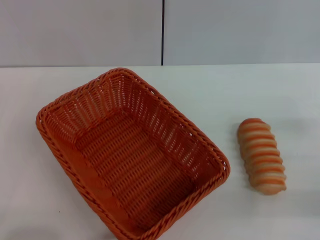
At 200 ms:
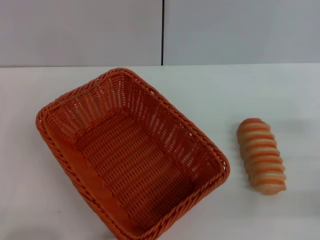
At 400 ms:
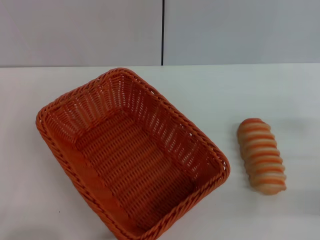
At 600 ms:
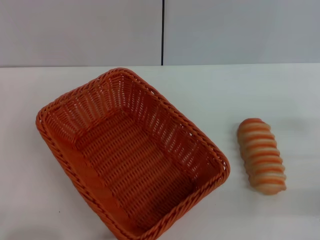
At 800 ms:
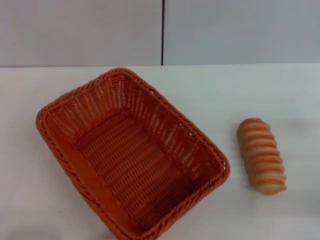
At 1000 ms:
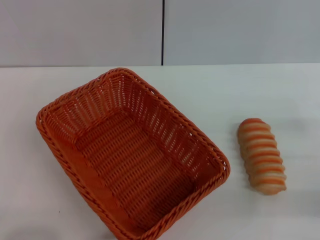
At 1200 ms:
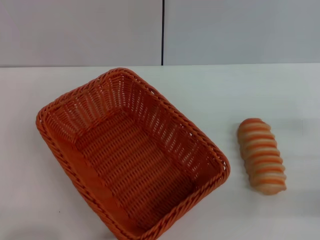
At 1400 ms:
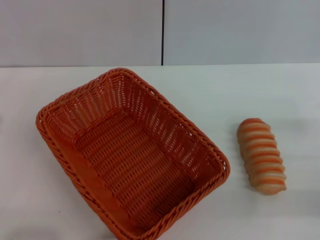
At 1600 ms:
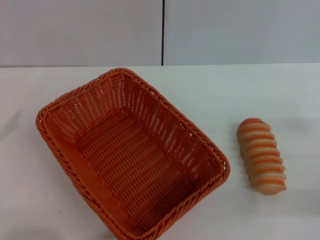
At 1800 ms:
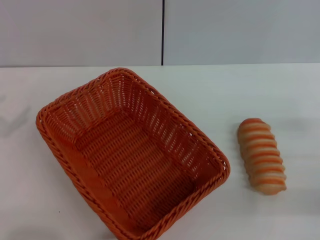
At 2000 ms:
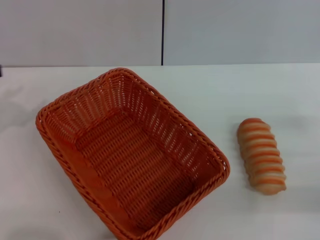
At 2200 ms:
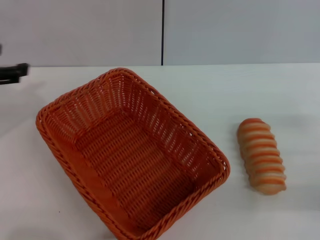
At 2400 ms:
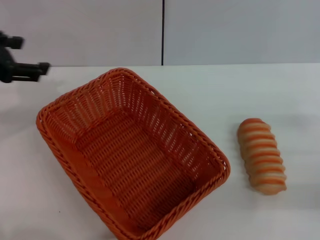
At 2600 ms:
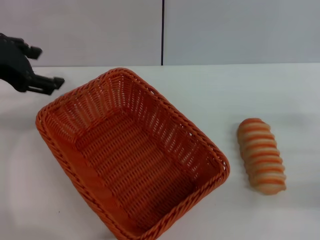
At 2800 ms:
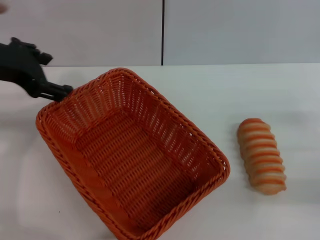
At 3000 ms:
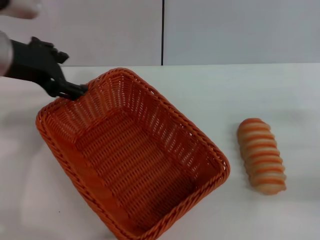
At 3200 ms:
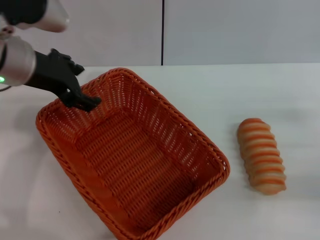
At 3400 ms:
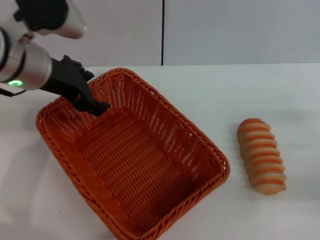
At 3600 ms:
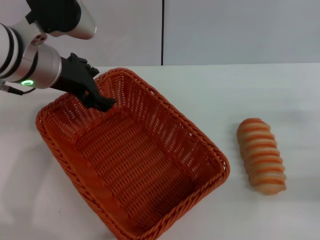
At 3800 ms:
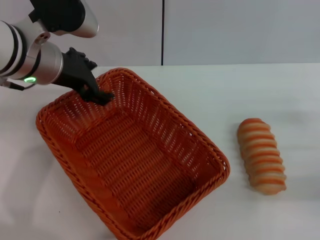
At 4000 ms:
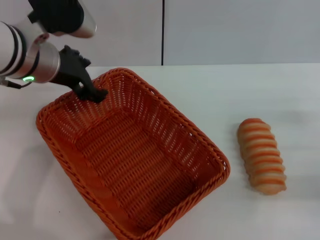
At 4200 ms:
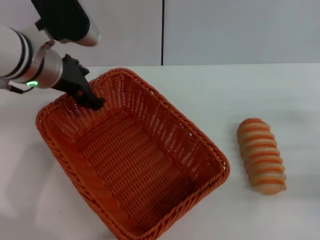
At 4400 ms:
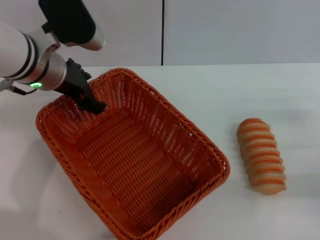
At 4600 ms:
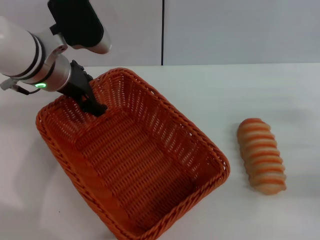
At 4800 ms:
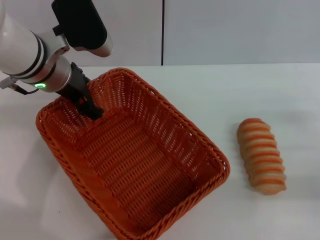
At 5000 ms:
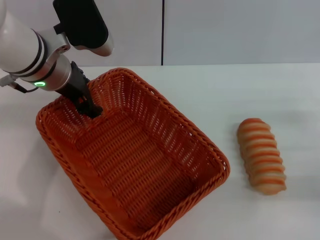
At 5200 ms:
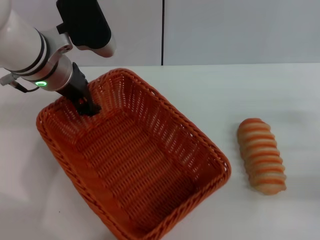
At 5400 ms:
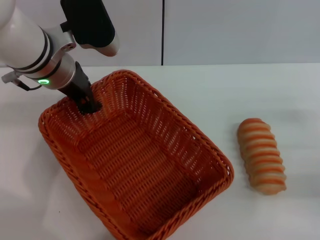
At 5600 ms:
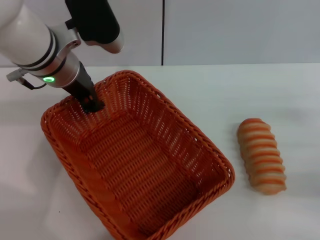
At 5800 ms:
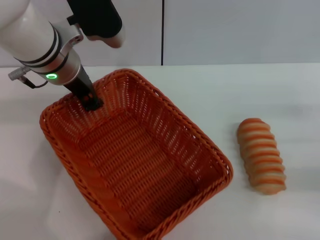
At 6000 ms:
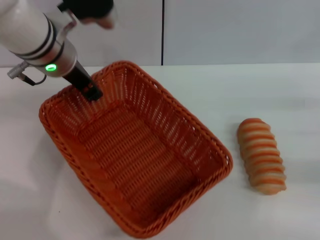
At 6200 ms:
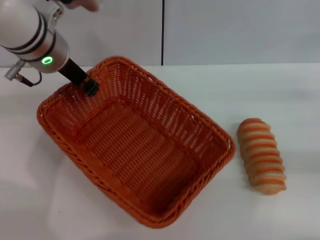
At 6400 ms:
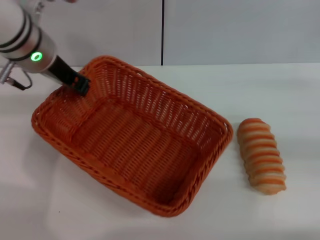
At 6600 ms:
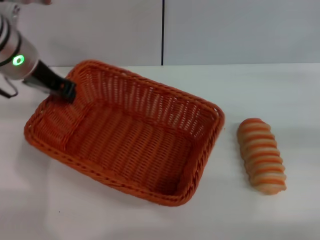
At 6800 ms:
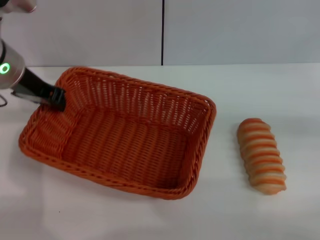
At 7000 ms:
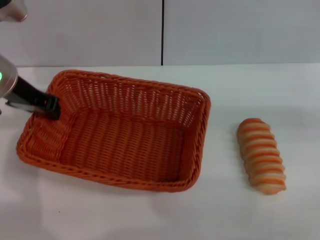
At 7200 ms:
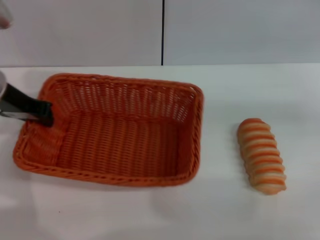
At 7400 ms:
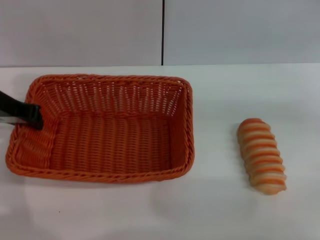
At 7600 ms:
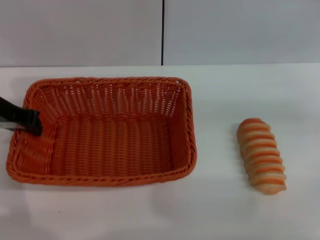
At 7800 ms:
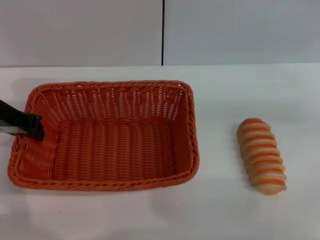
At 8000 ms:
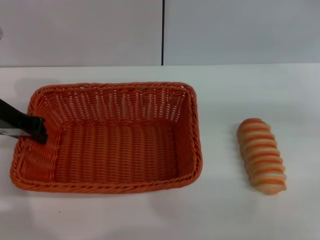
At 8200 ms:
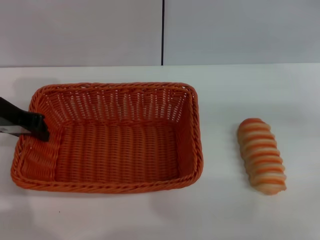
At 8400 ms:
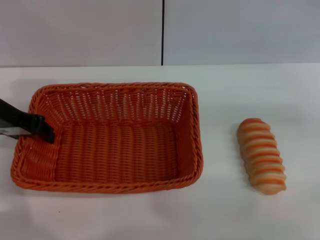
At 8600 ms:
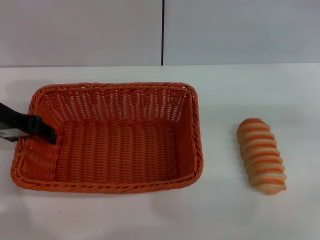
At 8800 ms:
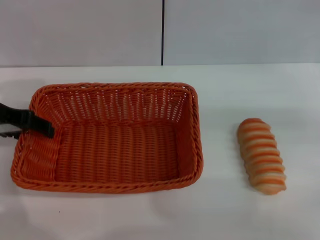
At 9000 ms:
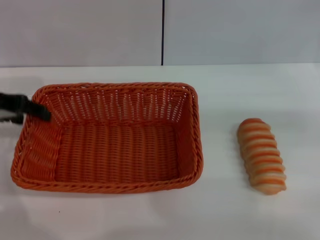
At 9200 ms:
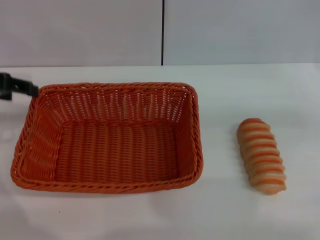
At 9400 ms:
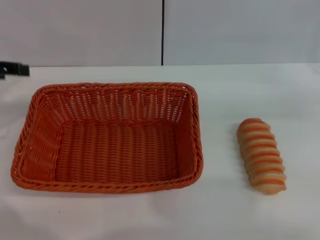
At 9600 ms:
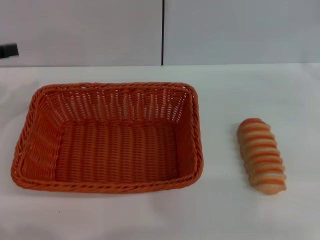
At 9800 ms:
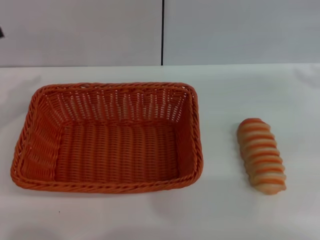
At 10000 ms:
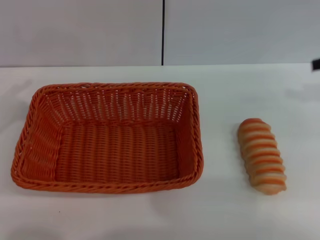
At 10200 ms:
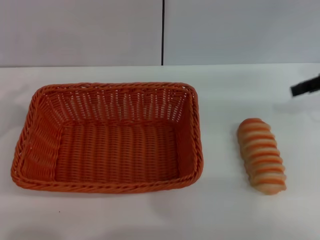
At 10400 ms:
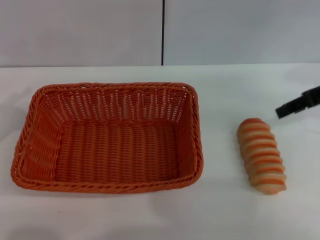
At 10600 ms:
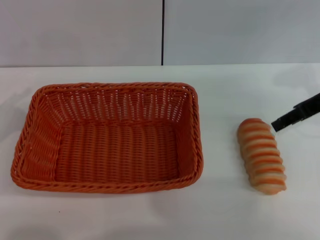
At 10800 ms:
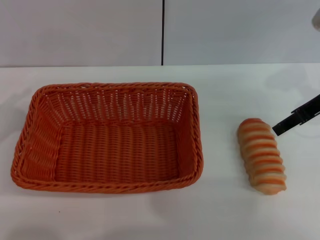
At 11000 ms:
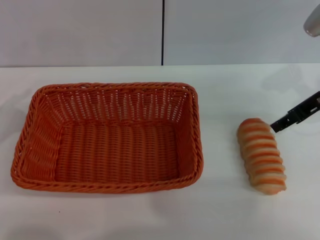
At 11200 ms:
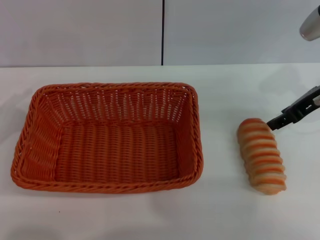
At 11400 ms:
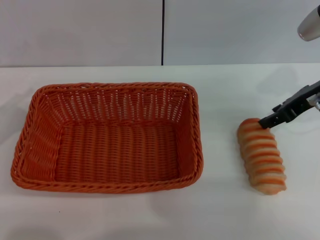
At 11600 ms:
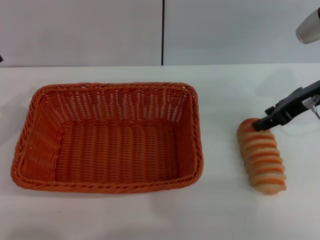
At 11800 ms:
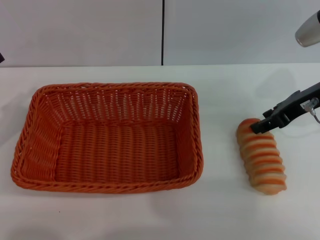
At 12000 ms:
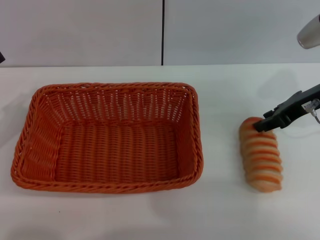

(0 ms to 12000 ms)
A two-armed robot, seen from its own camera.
Step, 0 ms - 6000 ms: Pick up the light basket with the left gripper.
Step, 6200 ms - 9000 ms: Place the light basket in the center of view with the left gripper.
1600 ms - 3000 ms: The left gripper heads to the right, forward and upward, covering about 25 cm.
3000 ms - 4400 ms: The left gripper heads downward, covering approximately 5 cm.
4400 ms - 6000 ms: The left gripper closes up.
6000 ms - 7600 ms: The right gripper travels forward and upward by roughly 10 cm; the left gripper shifts some 10 cm to the left.
7600 ms - 9000 ms: The left gripper opens up.
9000 ms - 10400 ms: The right gripper travels to the left by about 10 cm. The left gripper moves backward, to the left and downward, approximately 15 cm.
10400 ms - 12000 ms: The right gripper changes place by some 5 cm.

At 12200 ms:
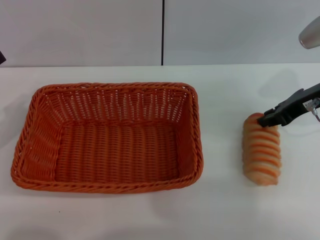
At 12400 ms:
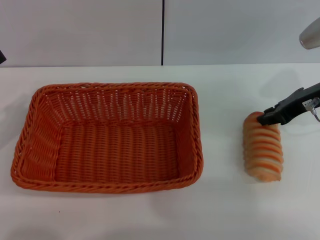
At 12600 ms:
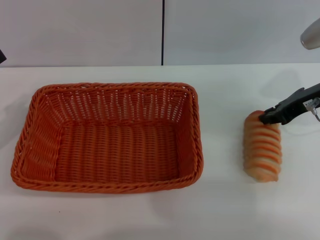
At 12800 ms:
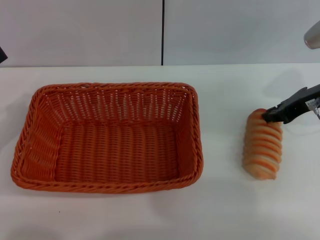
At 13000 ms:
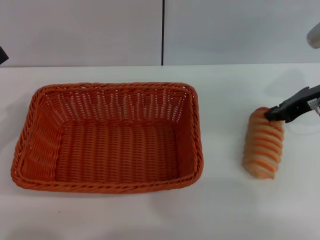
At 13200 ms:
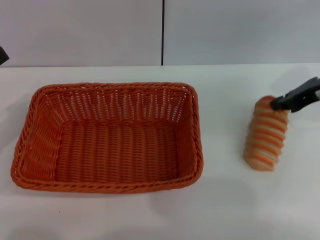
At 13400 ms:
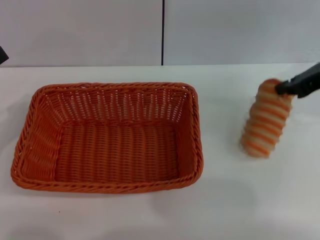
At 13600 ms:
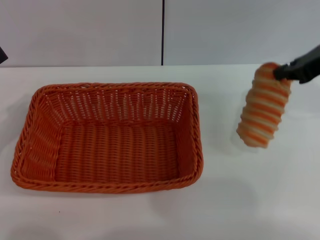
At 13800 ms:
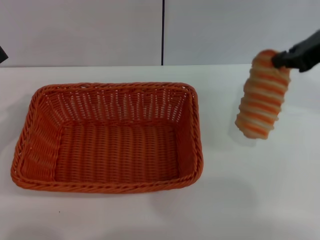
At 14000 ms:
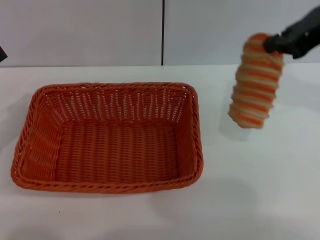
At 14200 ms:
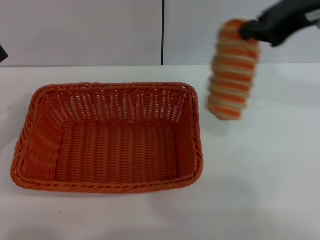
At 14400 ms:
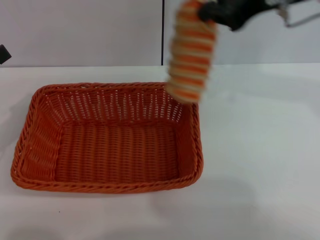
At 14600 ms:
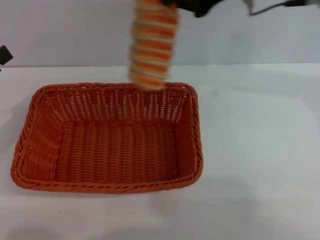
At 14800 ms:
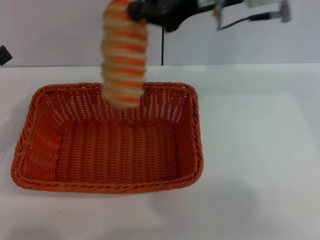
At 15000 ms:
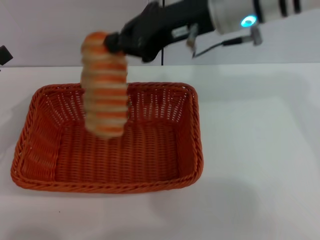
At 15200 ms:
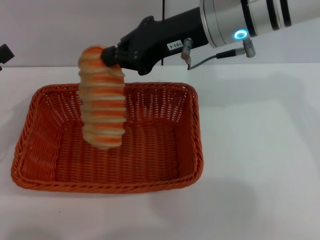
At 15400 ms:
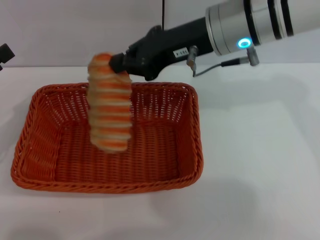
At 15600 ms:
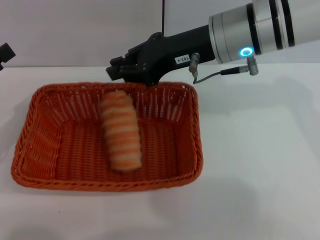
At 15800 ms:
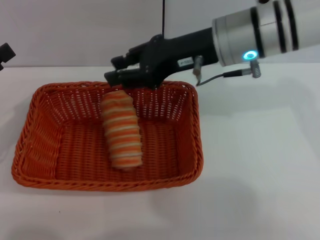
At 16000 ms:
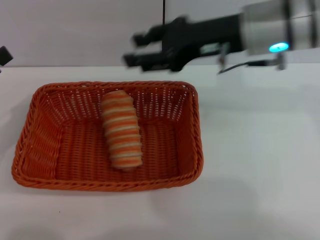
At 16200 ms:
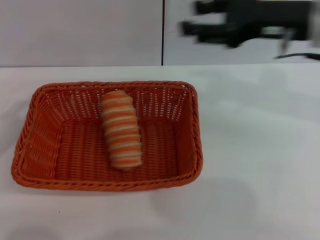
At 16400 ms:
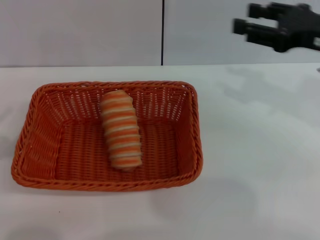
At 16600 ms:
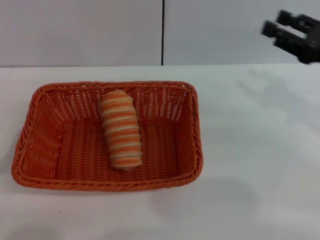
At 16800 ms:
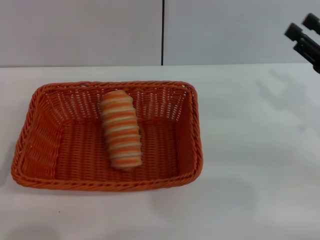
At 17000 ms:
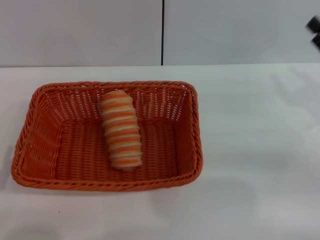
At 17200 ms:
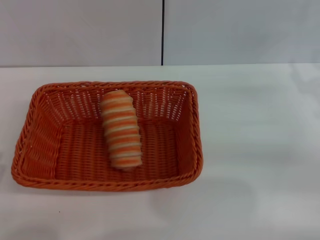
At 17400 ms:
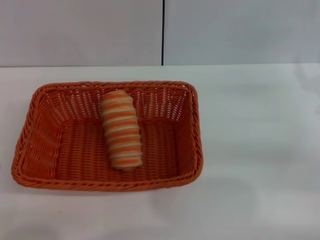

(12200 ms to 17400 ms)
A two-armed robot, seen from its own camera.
Step, 13600 ms - 15800 ms: Place the long bread into the light basket with the right gripper.
12200 ms - 14000 ms: The right gripper goes roughly 15 cm upward, and closes.
14000 ms - 15600 ms: The right gripper shifts roughly 15 cm to the left and downward.
15600 ms - 17400 ms: The left gripper moves backward and downward, some 20 cm. Meanwhile the right gripper heads to the right and downward, covering approximately 25 cm, and opens.
